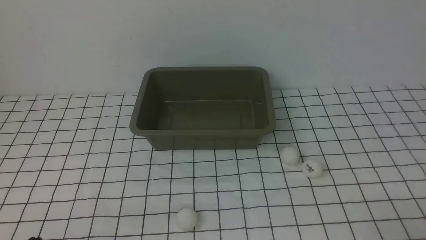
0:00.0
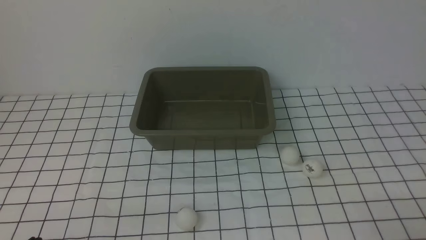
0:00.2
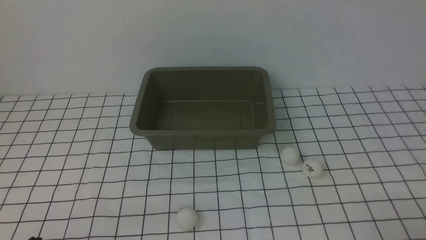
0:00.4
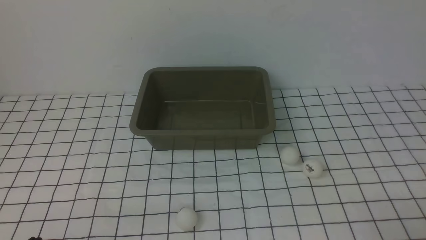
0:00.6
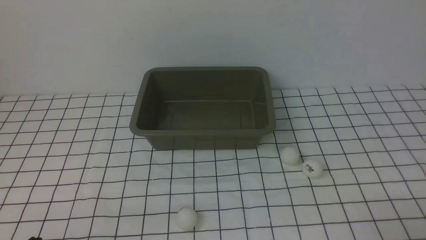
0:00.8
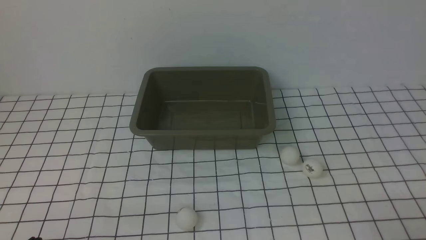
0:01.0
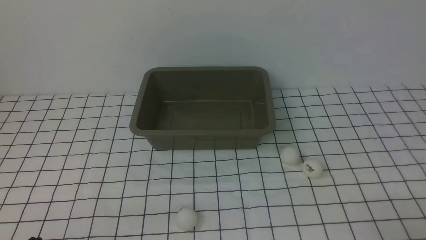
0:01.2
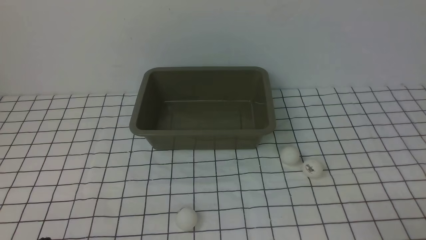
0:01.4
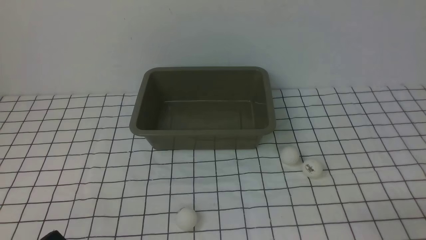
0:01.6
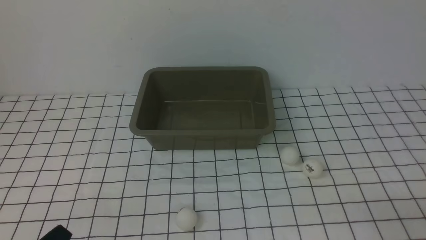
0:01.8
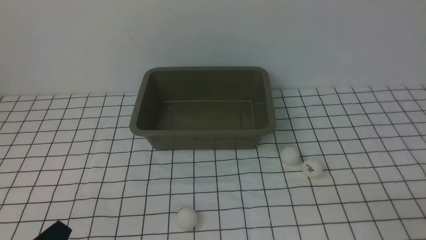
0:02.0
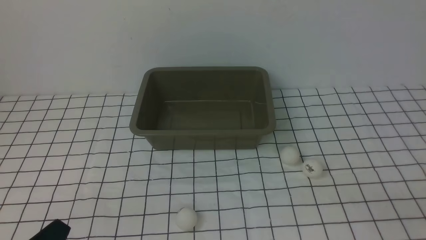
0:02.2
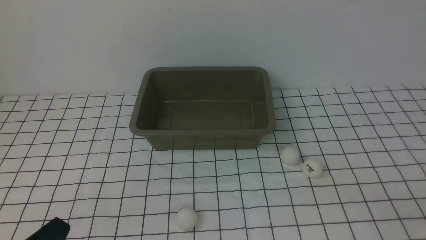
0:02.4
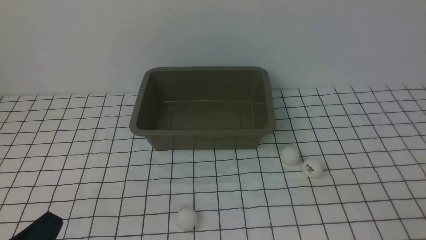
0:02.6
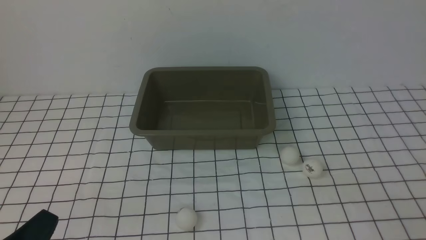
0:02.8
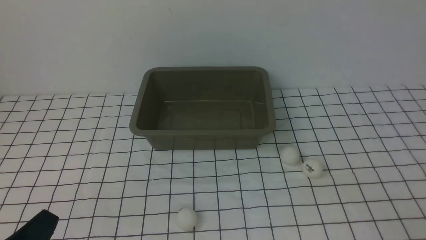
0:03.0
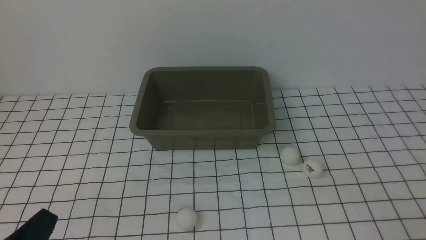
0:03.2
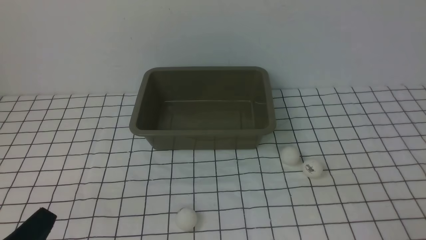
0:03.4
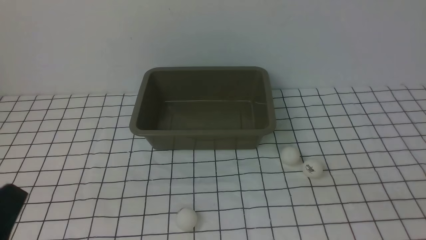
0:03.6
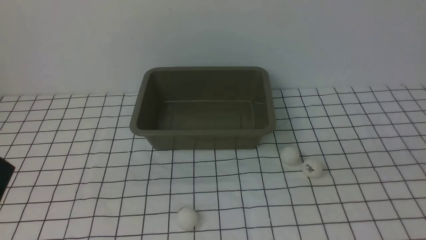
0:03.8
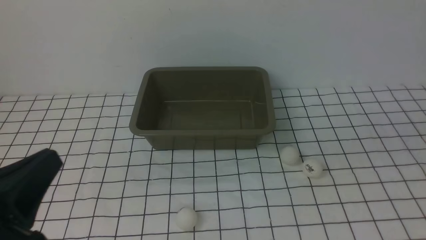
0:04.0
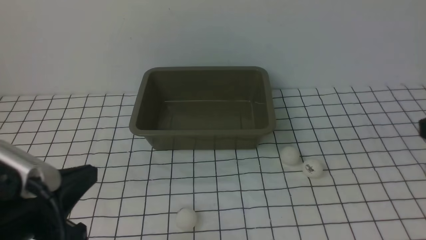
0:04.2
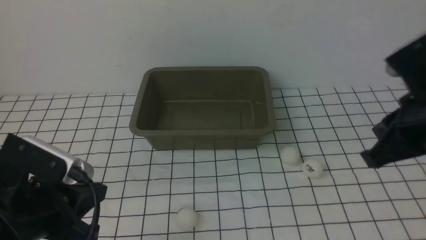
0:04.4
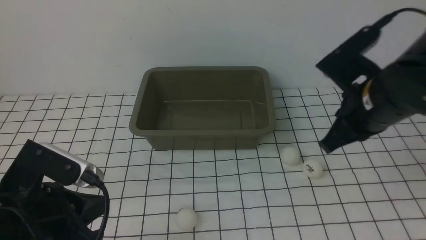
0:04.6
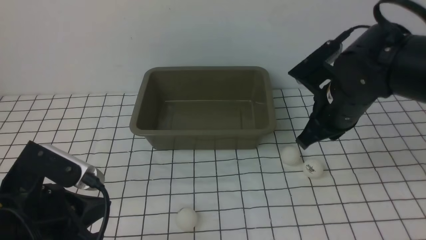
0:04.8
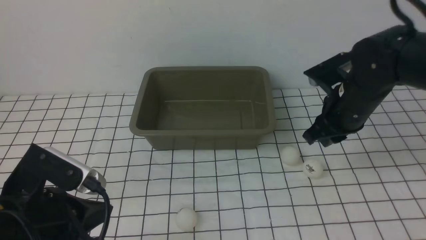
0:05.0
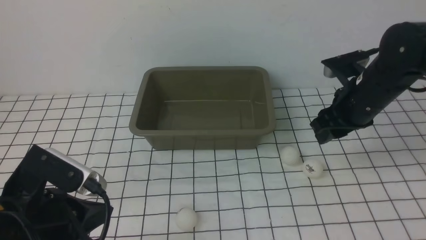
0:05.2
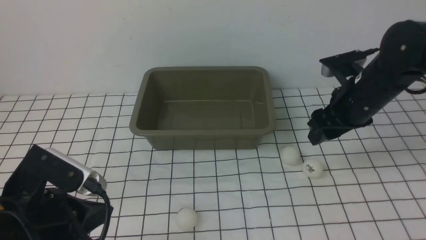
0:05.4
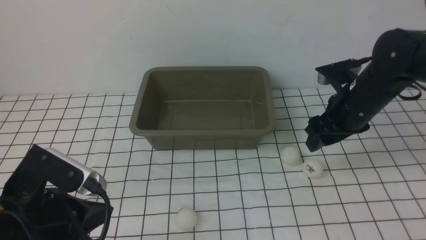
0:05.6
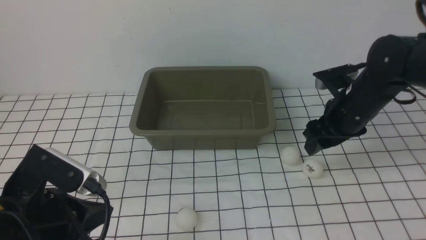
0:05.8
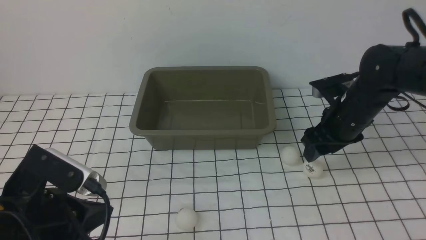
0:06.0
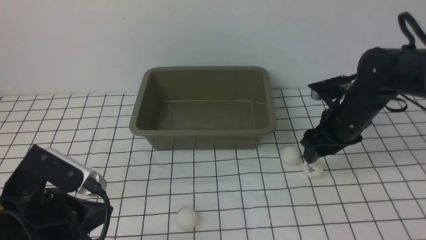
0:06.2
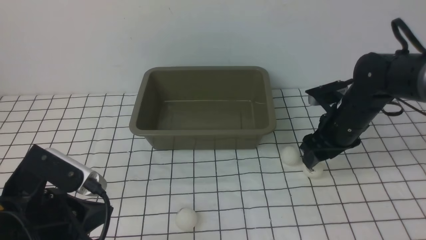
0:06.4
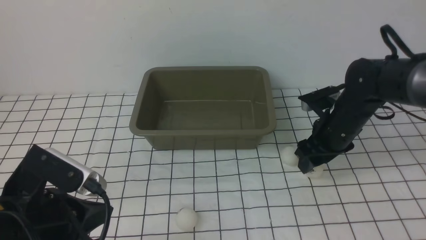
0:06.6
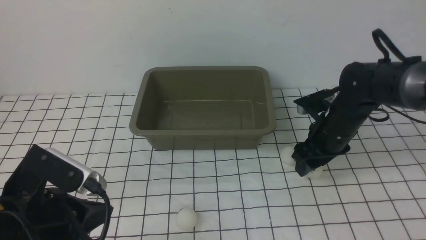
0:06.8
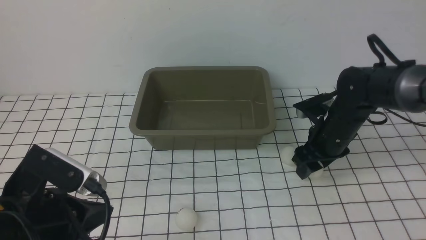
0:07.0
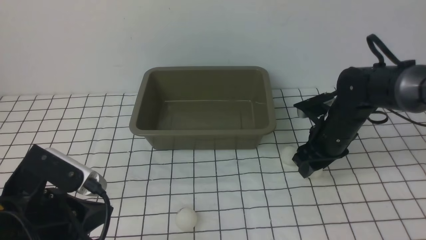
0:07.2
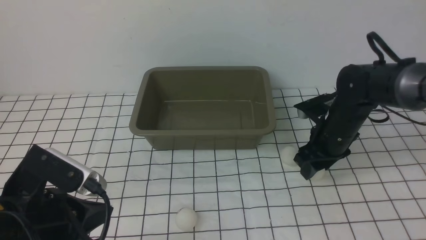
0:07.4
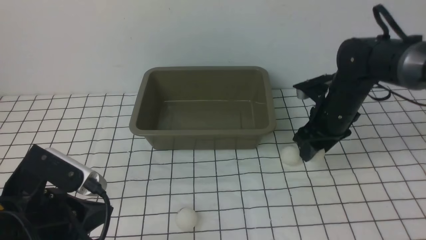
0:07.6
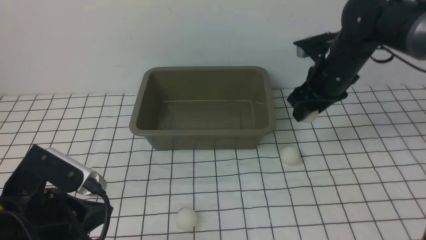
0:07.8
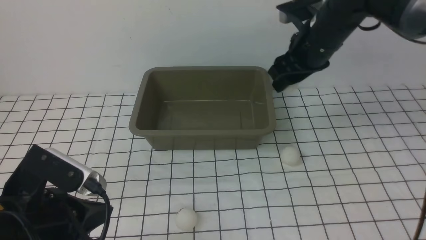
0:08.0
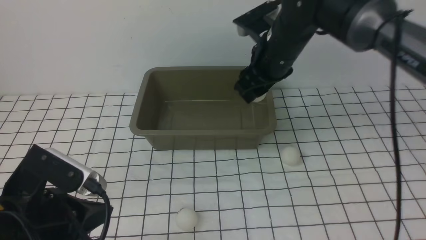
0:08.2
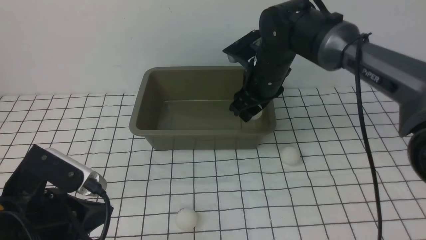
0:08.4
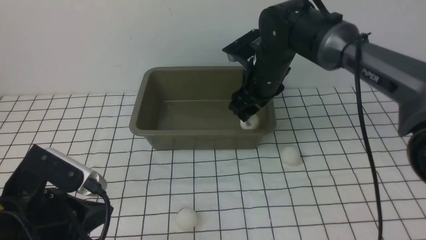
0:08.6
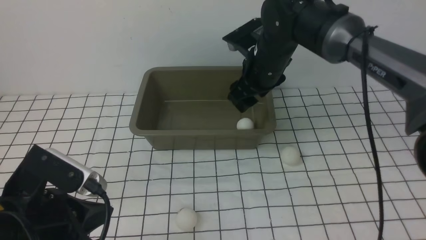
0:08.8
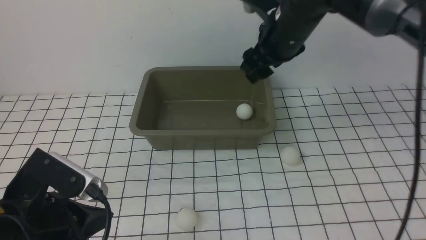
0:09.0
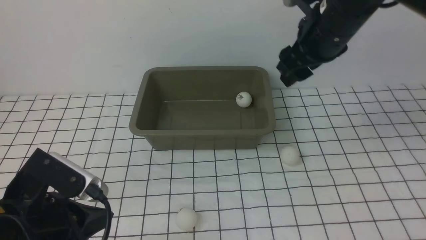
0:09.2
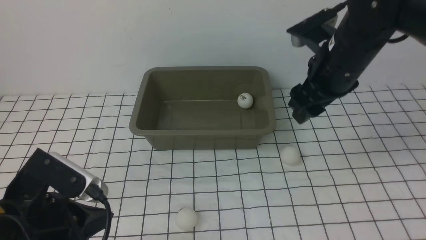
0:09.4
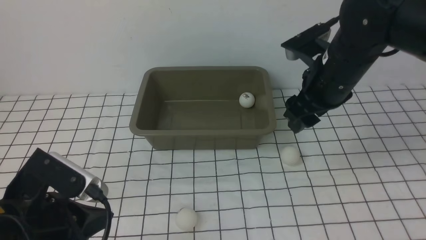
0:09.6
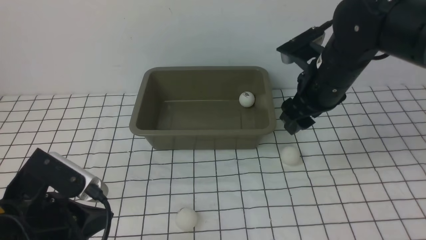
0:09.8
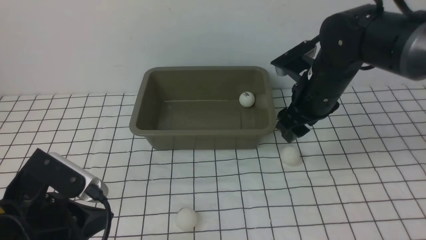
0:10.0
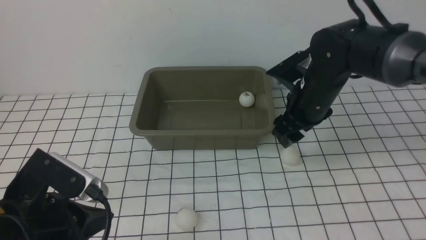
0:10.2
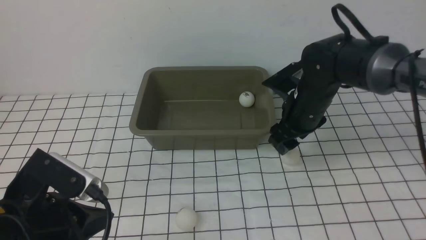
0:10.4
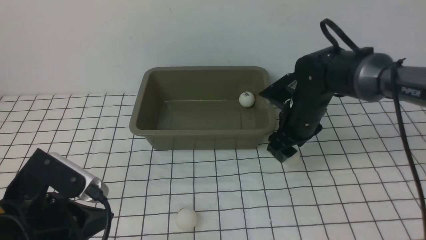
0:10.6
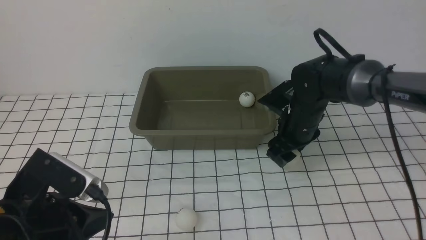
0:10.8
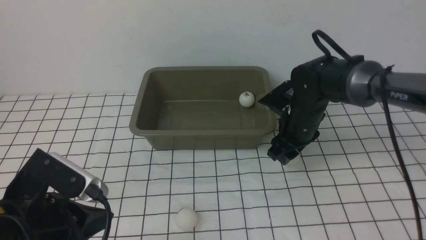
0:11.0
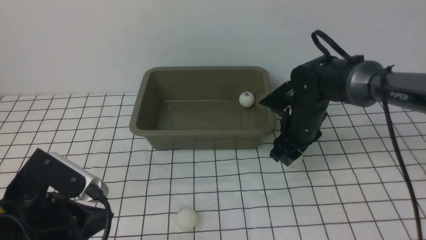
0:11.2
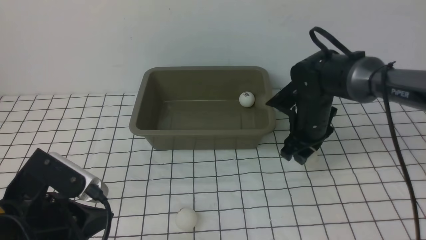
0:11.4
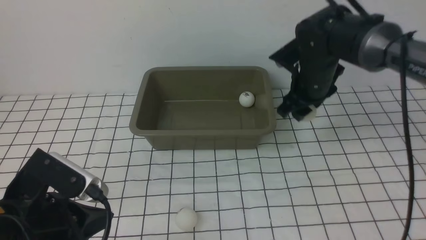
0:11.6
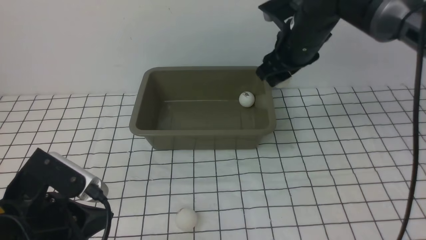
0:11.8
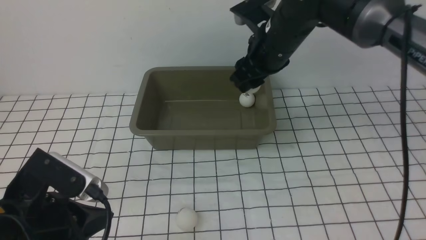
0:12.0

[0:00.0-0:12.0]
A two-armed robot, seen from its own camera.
Step, 0:00.0 to 0:07.8: use the right arm to clamp the table tennis ball closest to it.
Step, 0:08.0 to 0:08.8: use the right arm to put the table tennis ball into the box.
Step, 0:09.0 to 0:11.6: use the right arm to clamp the table tennis ball closest to it.
0:03.0 to 0:04.4: The left gripper travels forward and upward by some 10 cm. Meanwhile the right gripper travels forward, upward and to the left by some 20 cm.
0:04.4 to 0:06.0: The right gripper goes about 20 cm forward and downward, and opens up.
0:06.0 to 0:07.6: The grippers move only a little.
0:07.6 to 0:09.0: The right gripper shifts about 15 cm upward and to the left.
0:09.0 to 0:10.4: The right gripper goes about 10 cm downward.
0:10.4 to 0:12.0: The right gripper moves upward and to the left, roughly 10 cm.

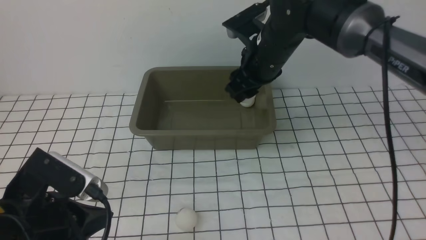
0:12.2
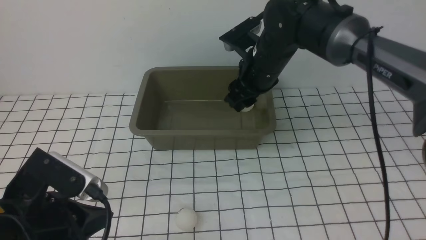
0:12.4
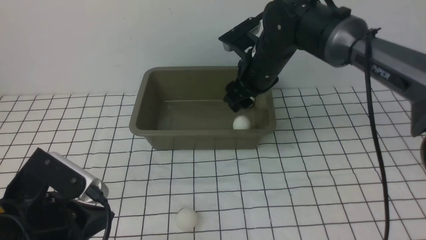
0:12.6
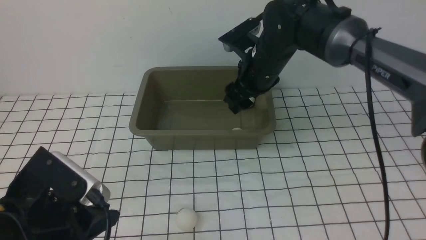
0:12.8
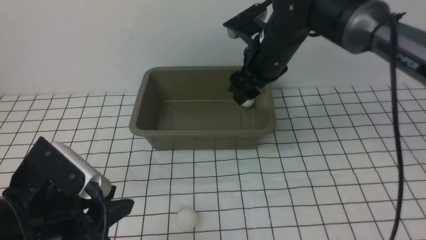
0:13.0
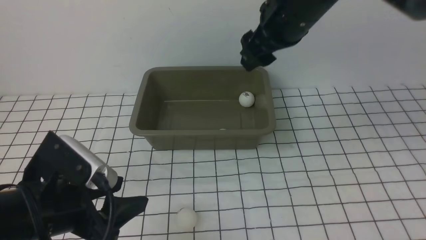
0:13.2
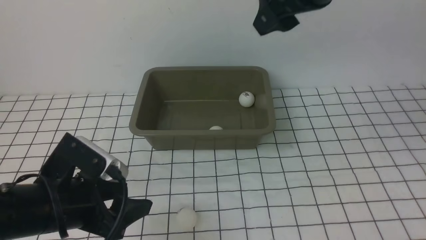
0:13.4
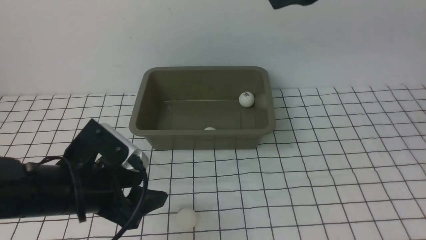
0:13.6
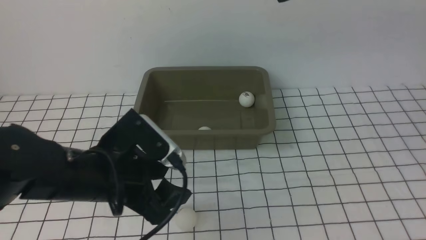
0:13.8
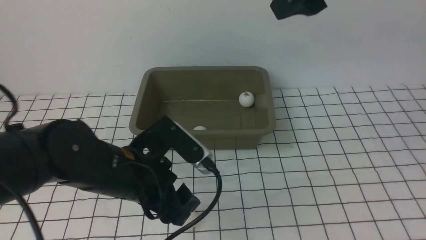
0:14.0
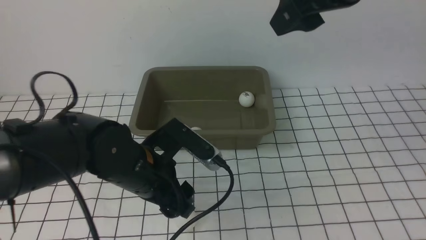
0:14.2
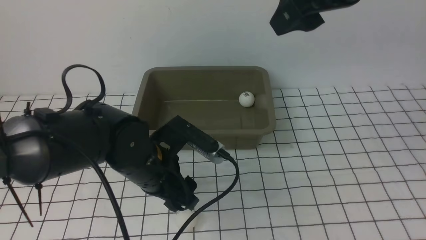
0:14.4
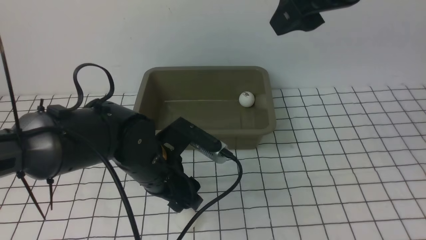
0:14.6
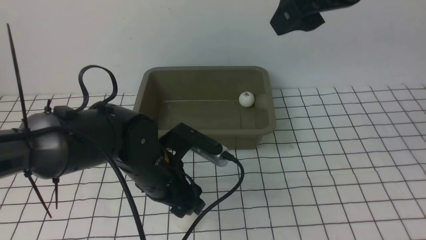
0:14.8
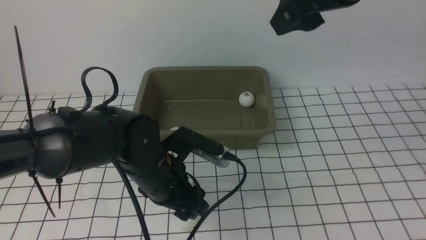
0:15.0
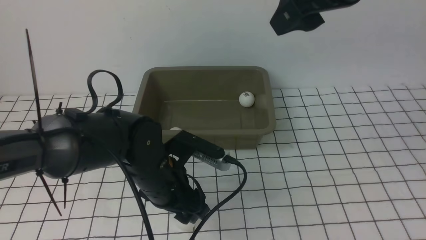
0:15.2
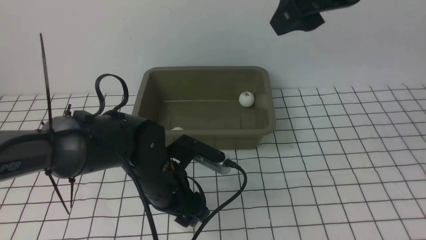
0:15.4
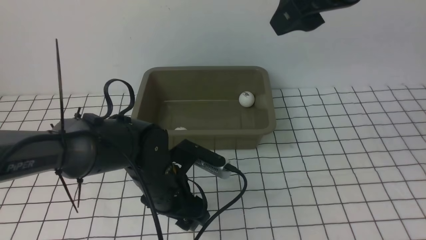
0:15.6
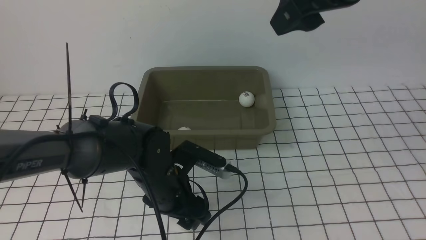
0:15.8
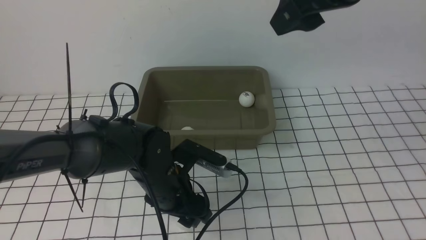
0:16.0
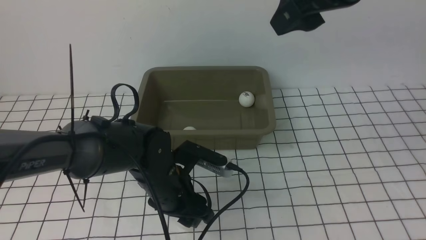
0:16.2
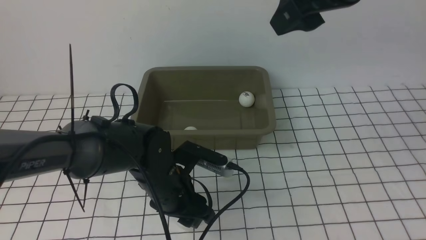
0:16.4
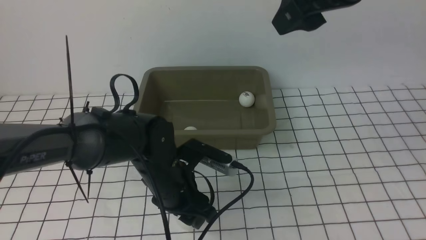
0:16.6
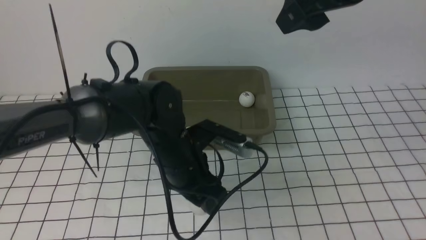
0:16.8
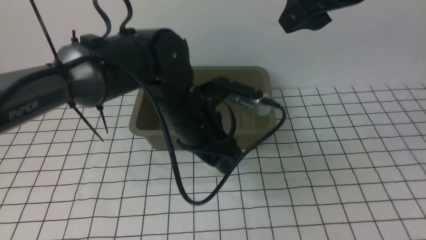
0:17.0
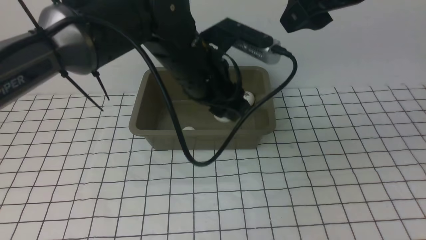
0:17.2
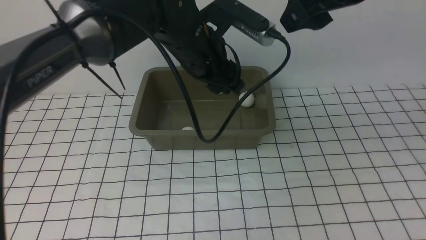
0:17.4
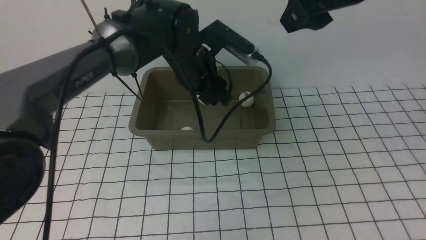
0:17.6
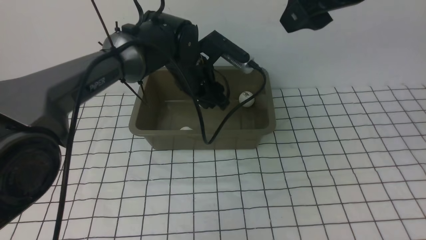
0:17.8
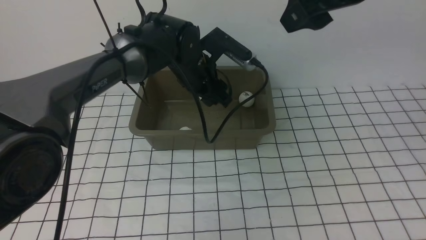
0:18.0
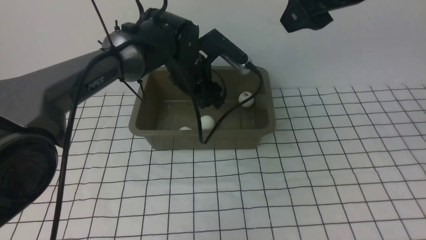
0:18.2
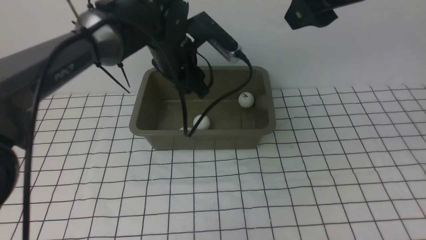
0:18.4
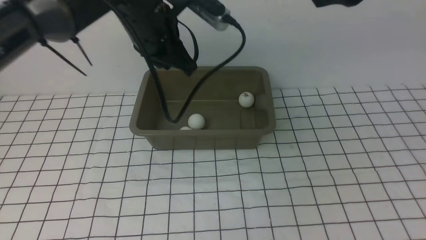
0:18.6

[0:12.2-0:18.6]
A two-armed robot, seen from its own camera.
Step, 0:13.0 to 0:16.8: use the left arm to clamp the table tennis ball closest to it.
Step, 0:17.0 to 0:18.2: use the left arm to put the table tennis ball into the box.
0:12.2 to 0:13.8: The left gripper heads forward and to the right, covering some 10 cm, and opens up. The right gripper moves upward and backward, approximately 20 cm.
0:13.8 to 0:15.4: The left gripper is displaced downward and to the right by roughly 10 cm.
0:15.4 to 0:17.0: The left gripper goes some 15 cm upward and forward.
0:17.0 to 0:18.6: The left gripper shifts some 15 cm upward and to the left, and closes. The right gripper moves backward, to the right and upward, approximately 10 cm, and closes.
